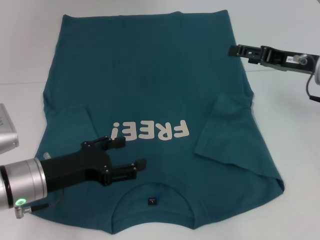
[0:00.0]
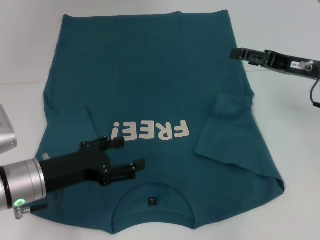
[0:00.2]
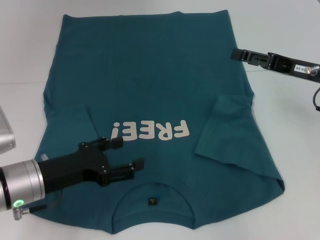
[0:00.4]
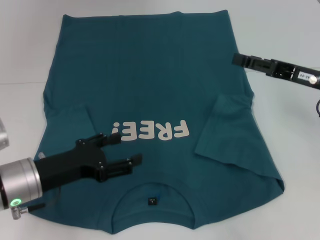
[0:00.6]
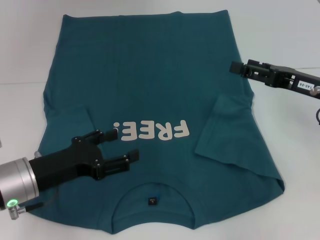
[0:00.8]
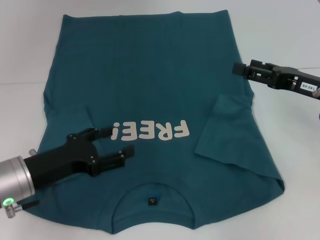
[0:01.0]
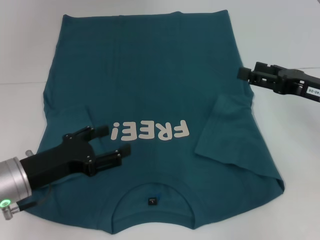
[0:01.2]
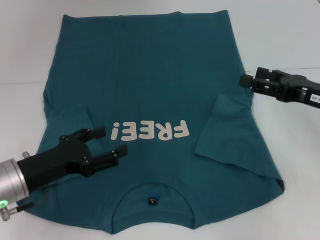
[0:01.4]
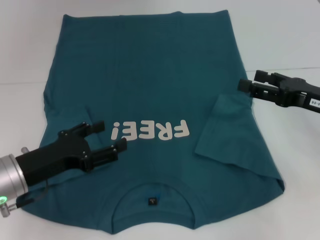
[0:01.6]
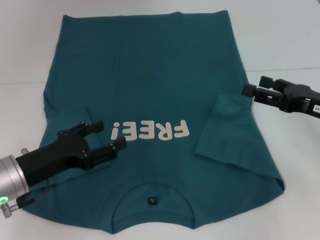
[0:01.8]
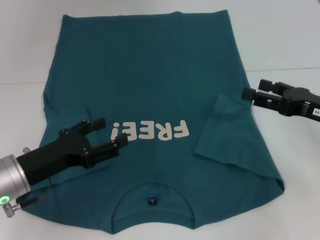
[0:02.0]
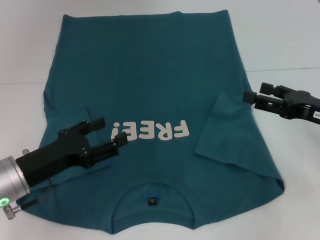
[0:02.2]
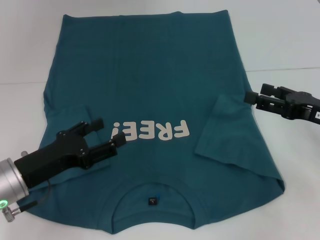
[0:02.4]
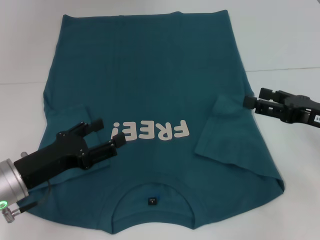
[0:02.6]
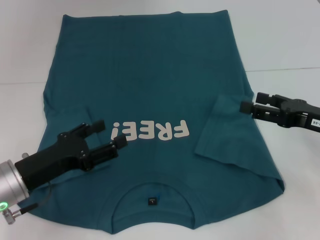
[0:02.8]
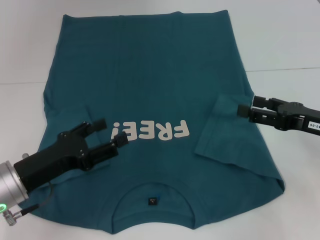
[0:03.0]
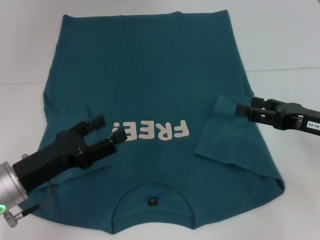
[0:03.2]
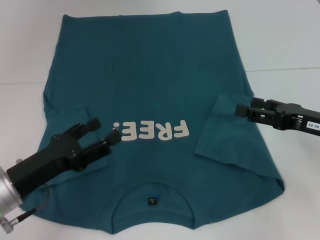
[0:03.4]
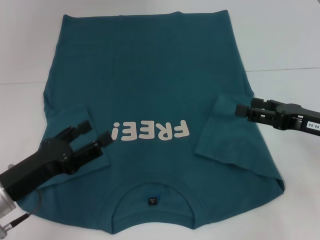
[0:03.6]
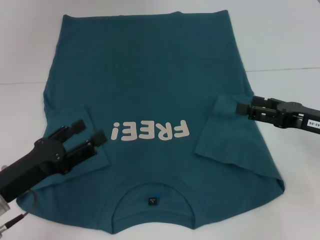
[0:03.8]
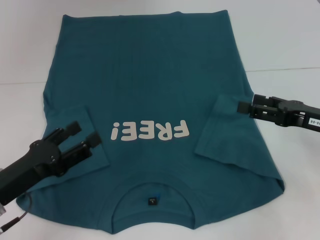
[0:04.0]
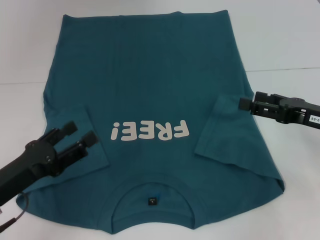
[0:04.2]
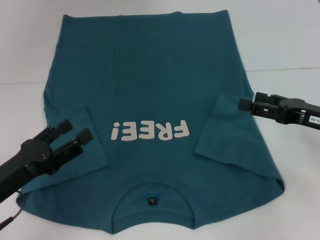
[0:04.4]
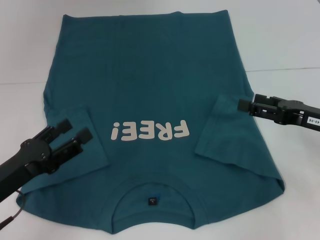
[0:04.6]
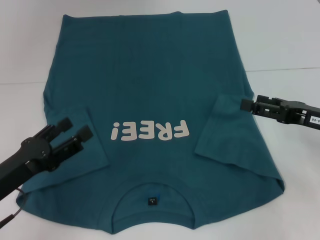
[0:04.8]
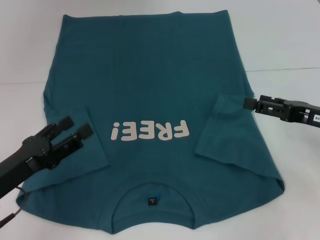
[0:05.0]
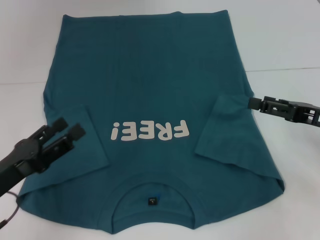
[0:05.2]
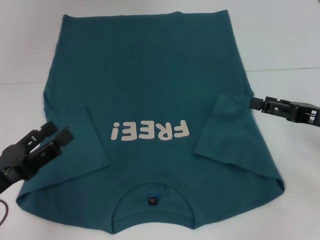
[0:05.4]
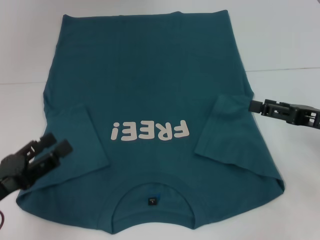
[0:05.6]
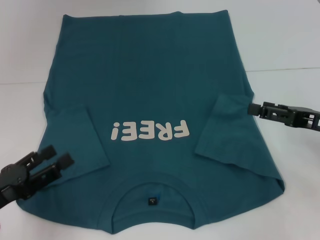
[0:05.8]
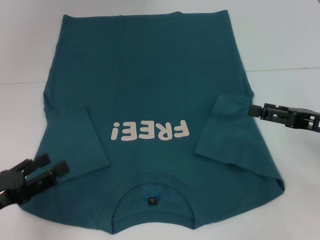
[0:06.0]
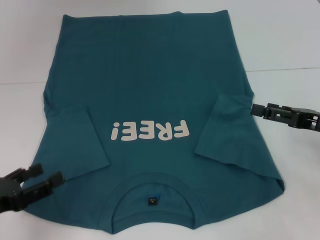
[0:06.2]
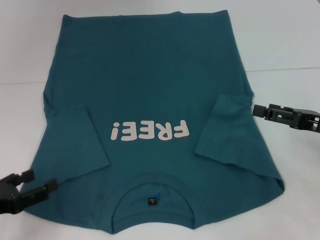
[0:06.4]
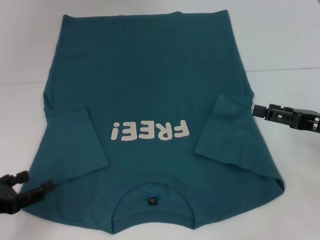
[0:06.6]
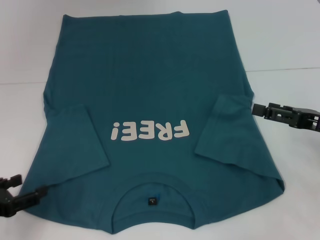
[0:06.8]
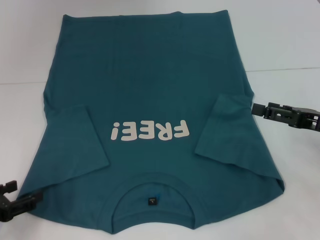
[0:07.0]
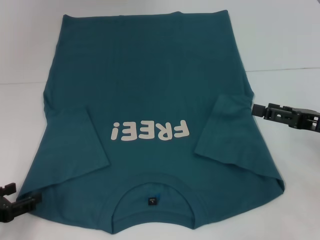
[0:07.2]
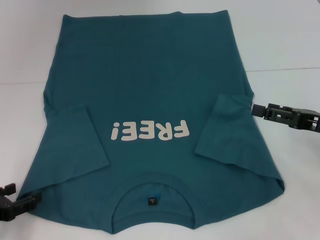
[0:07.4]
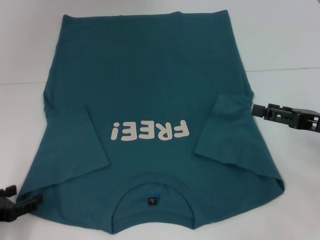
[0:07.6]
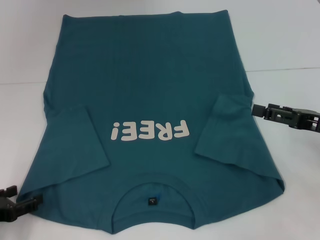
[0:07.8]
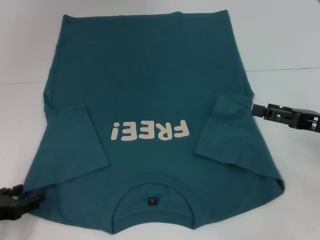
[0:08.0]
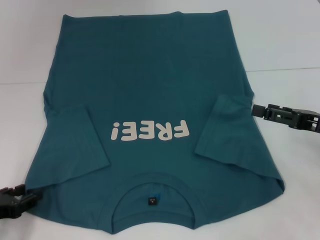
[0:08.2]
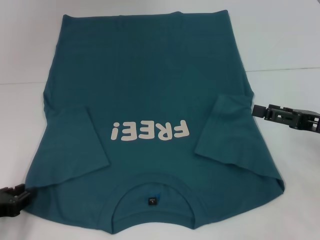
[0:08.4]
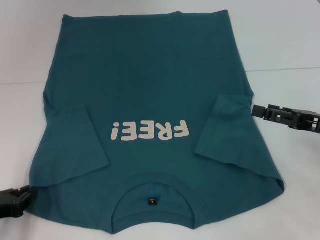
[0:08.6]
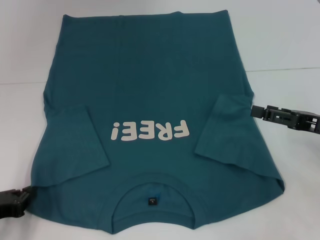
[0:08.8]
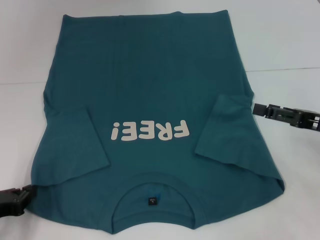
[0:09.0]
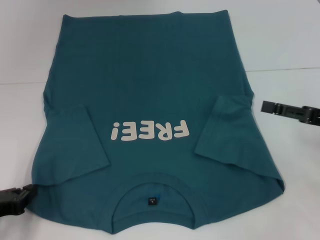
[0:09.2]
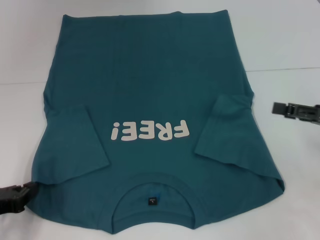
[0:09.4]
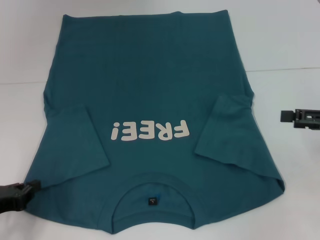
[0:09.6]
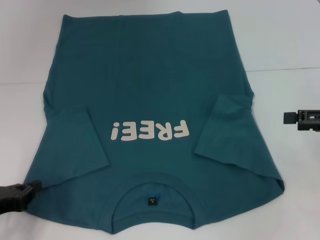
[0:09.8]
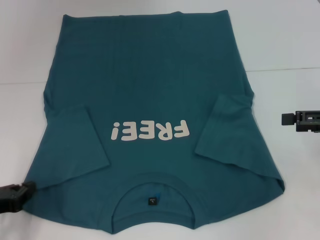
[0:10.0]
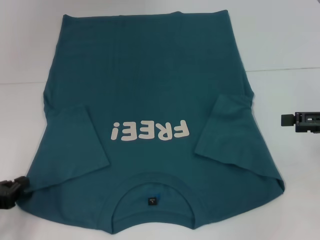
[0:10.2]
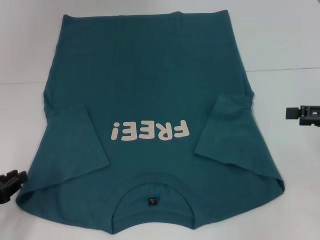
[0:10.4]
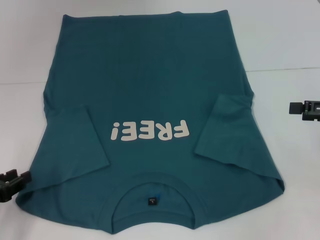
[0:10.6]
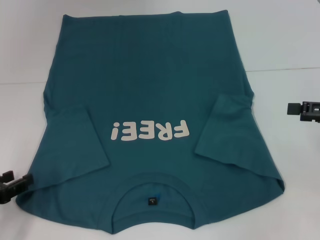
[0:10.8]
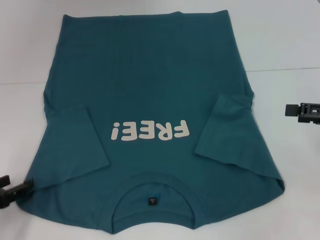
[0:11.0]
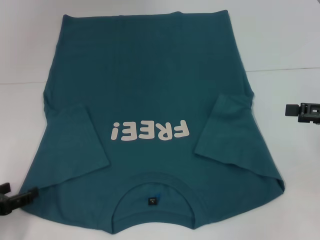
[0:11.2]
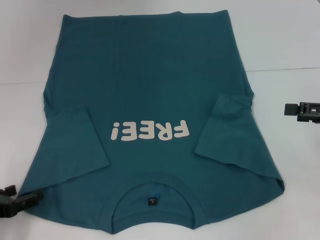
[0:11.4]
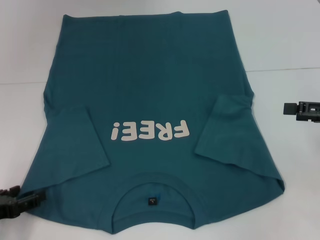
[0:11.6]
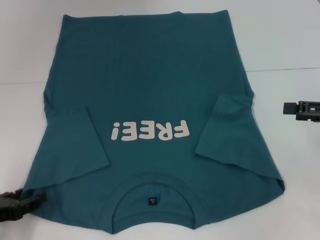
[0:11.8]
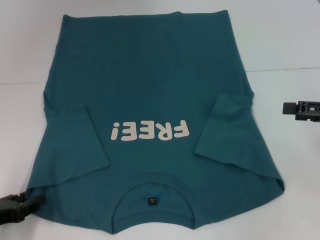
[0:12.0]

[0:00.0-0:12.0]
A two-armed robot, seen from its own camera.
0:00.0 to 0:01.6: The right gripper heads backward, covering approximately 10 cm.
0:01.6 to 0:04.4: The grippers move only a little.
0:04.4 to 0:06.0: The grippers move only a little.
0:06.0 to 0:07.6: The left gripper shifts by some 5 cm.
0:07.6 to 0:09.0: The left gripper closes up.
0:09.0 to 0:10.4: The right gripper moves some 5 cm.
0:10.4 to 0:12.0: The left gripper opens up.

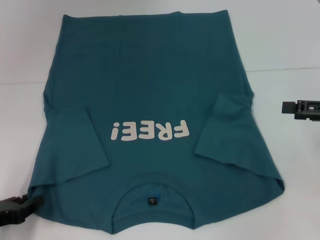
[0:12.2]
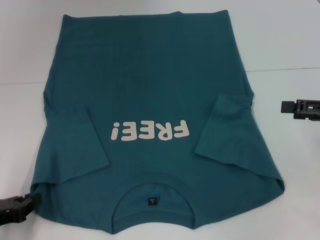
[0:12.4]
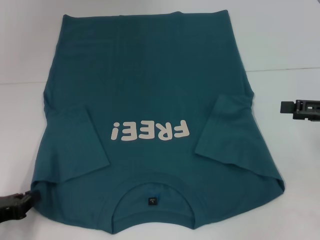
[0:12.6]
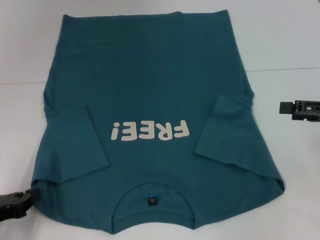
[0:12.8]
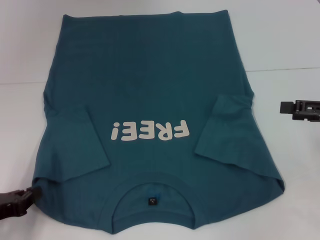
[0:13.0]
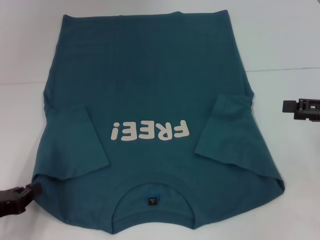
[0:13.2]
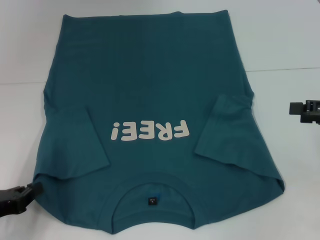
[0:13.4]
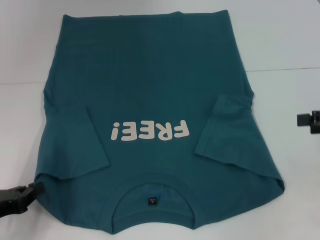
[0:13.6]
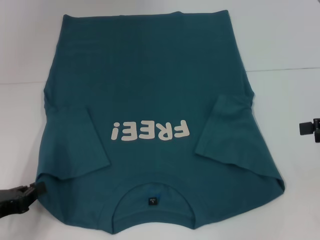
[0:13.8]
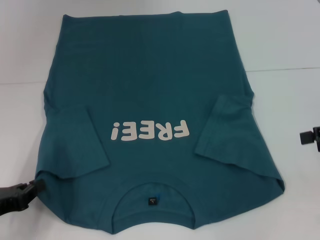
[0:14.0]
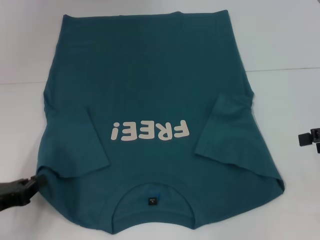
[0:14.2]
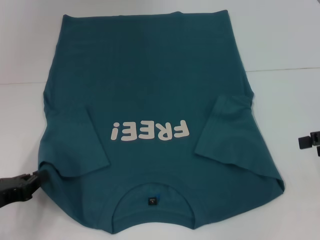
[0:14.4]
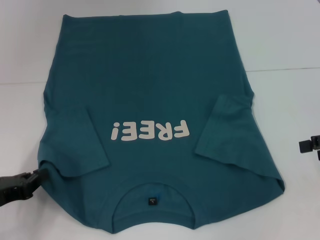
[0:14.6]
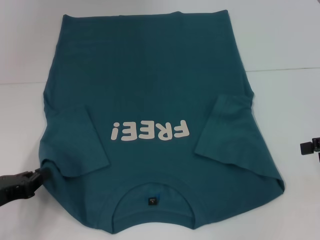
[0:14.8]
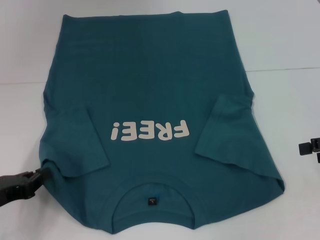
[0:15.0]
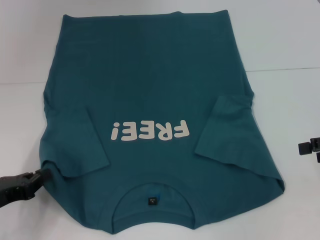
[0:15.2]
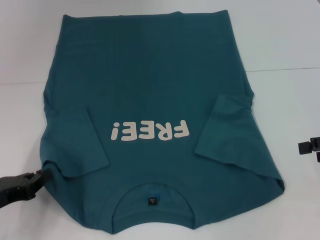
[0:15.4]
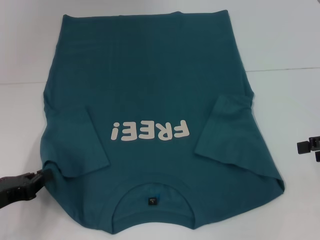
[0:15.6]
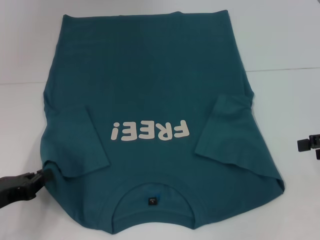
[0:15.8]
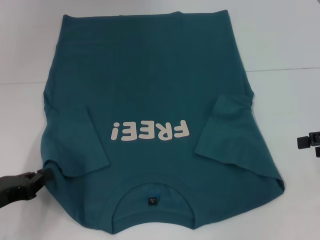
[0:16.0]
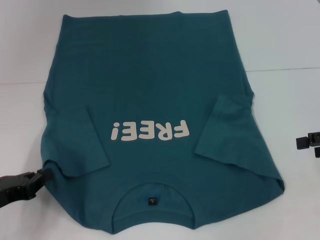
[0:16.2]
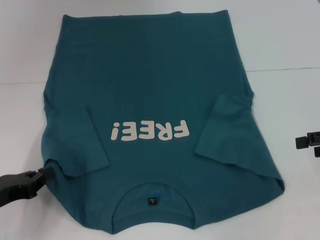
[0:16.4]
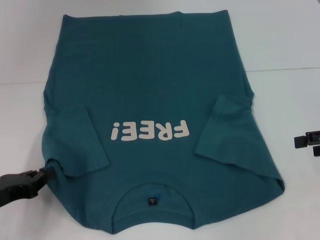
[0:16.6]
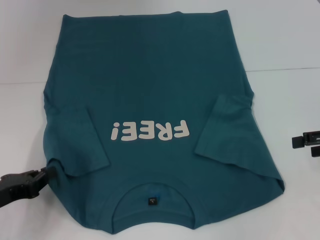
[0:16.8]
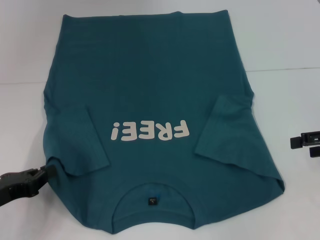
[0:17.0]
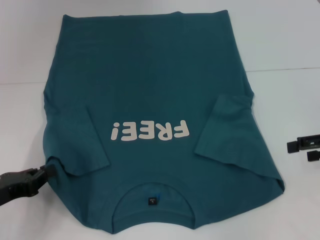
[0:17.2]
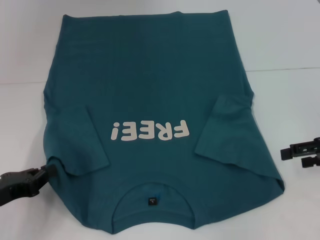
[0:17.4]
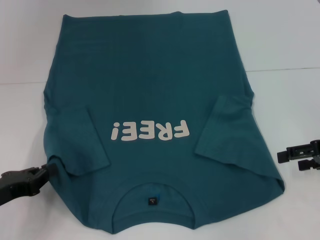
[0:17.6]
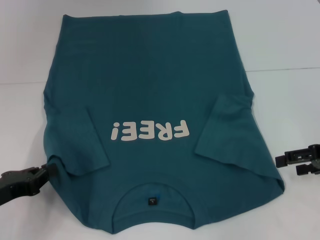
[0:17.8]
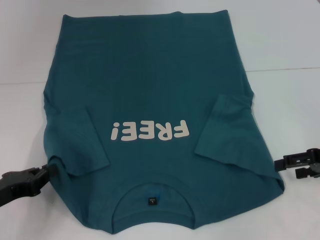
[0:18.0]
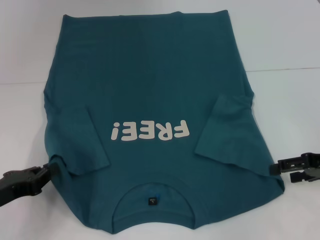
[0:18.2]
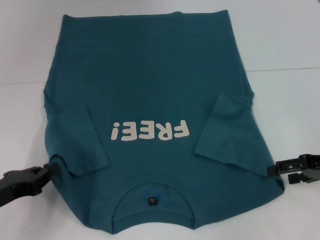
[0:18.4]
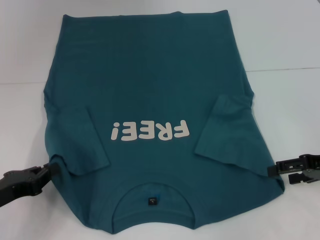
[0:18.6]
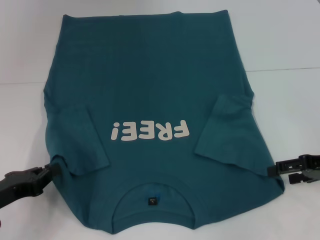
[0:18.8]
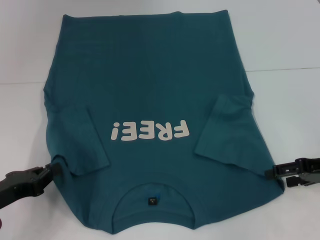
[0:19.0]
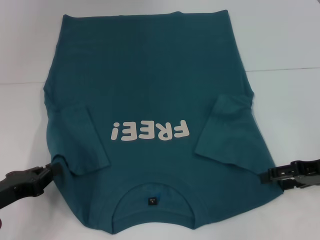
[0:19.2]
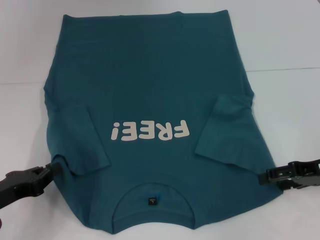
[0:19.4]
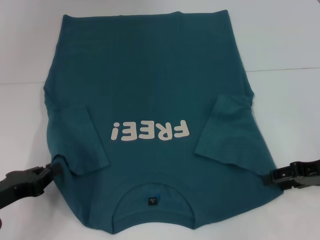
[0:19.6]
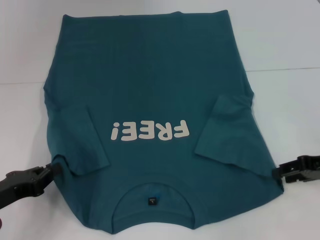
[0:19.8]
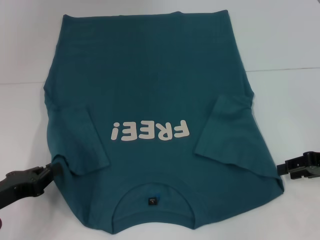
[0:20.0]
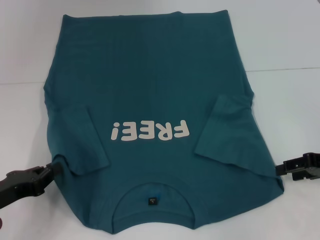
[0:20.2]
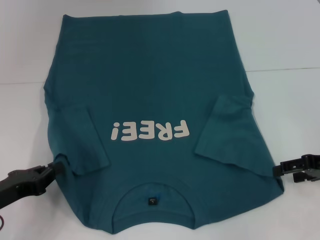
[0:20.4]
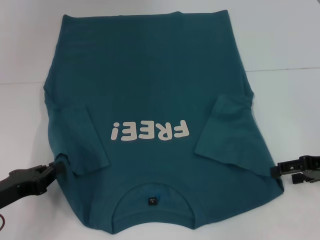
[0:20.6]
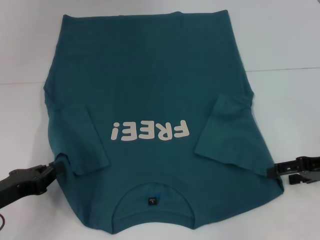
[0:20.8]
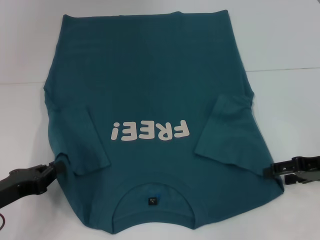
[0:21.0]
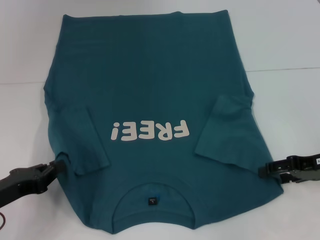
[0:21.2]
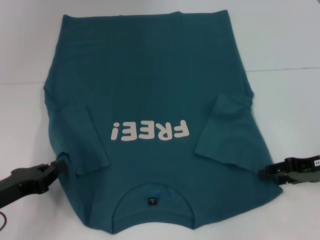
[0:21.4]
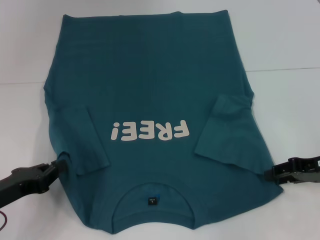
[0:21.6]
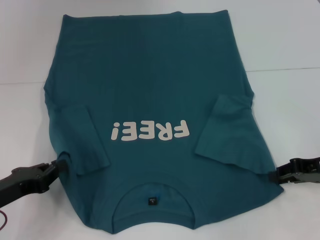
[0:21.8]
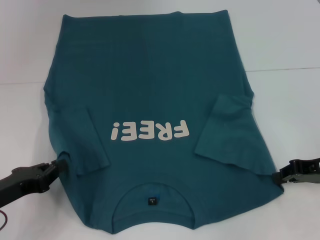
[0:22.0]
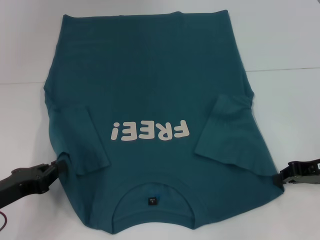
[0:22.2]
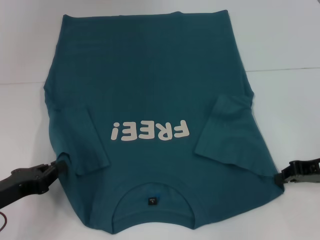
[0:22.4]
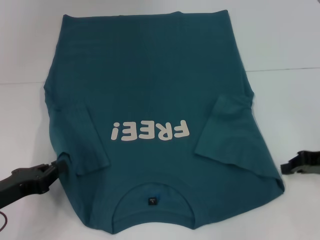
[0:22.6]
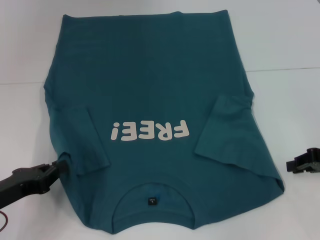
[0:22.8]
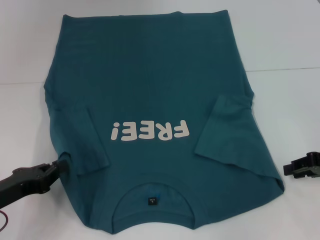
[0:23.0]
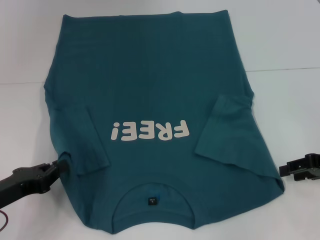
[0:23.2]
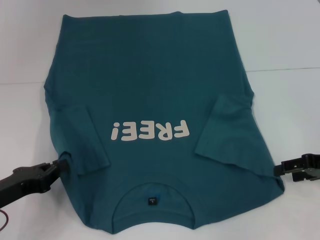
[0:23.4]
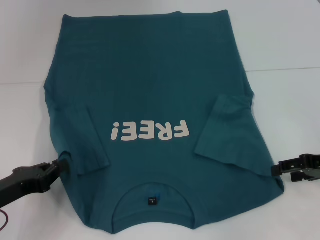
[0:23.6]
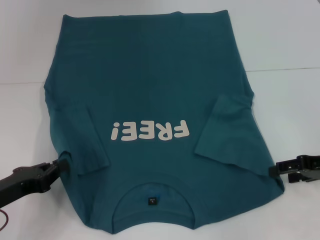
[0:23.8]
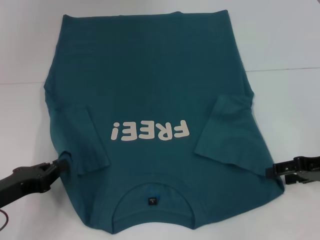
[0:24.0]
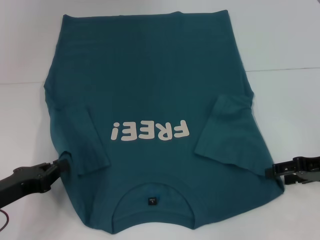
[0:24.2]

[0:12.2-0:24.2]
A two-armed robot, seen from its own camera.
0:12.2 to 0:13.8: The left gripper closes up.
0:13.8 to 0:15.2: The grippers stay close to where they were, moving slightly.
0:15.2 to 0:16.6: Both grippers stay about where they are.
0:16.6 to 0:18.2: The right gripper ends up roughly 5 cm from where it was.
0:18.2 to 0:21.2: There are only small adjustments of the grippers.
0:21.2 to 0:22.6: The right gripper closes.
0:22.6 to 0:24.2: The right gripper opens.
